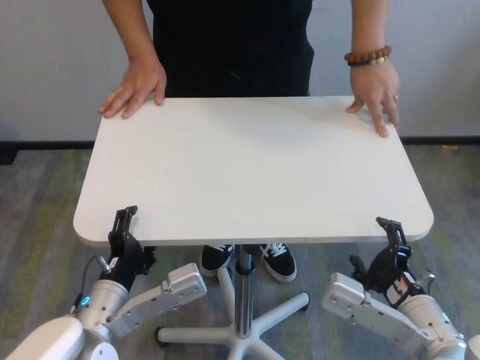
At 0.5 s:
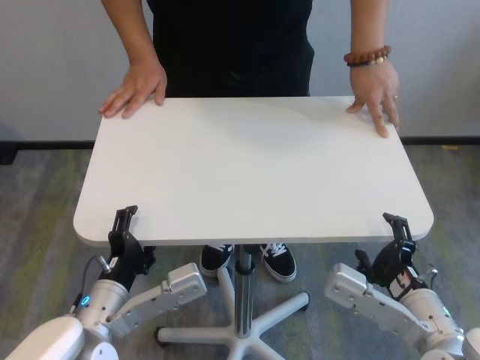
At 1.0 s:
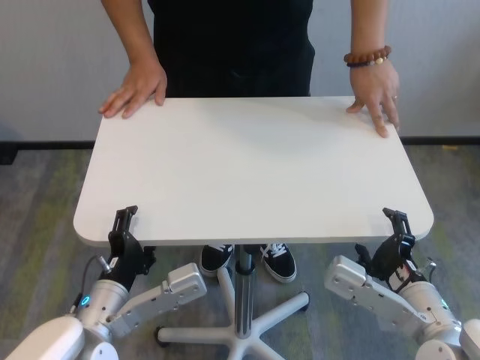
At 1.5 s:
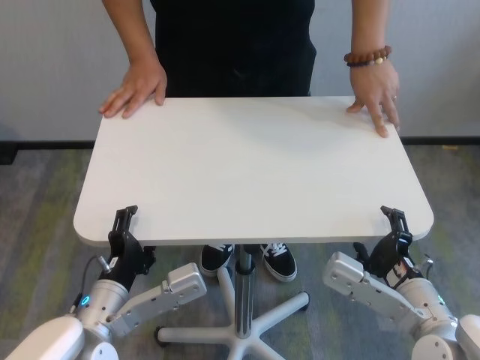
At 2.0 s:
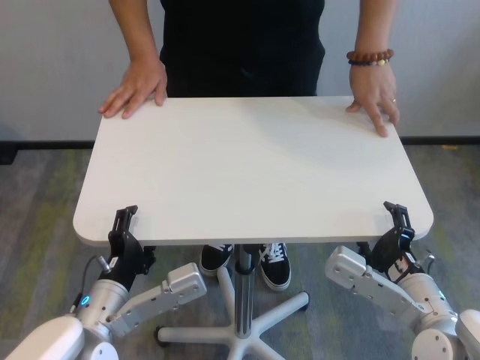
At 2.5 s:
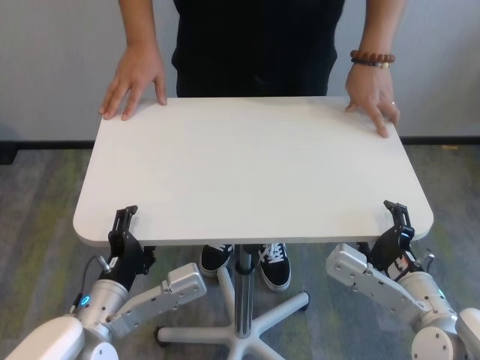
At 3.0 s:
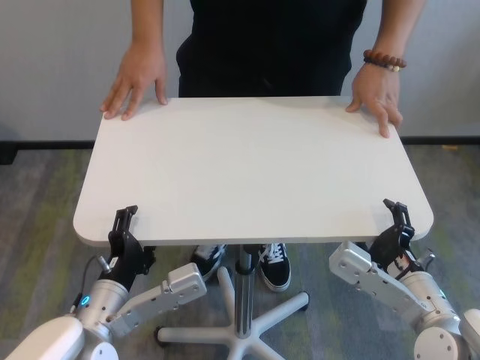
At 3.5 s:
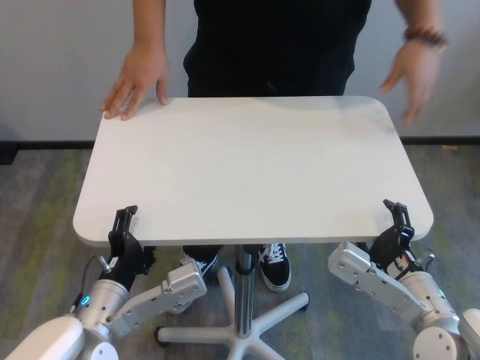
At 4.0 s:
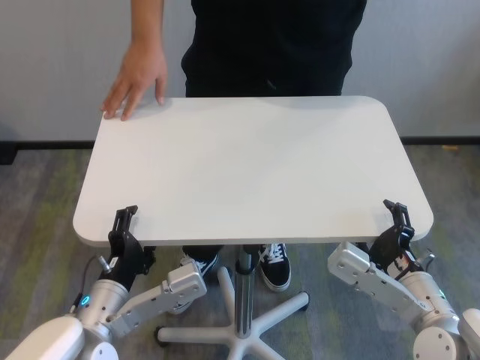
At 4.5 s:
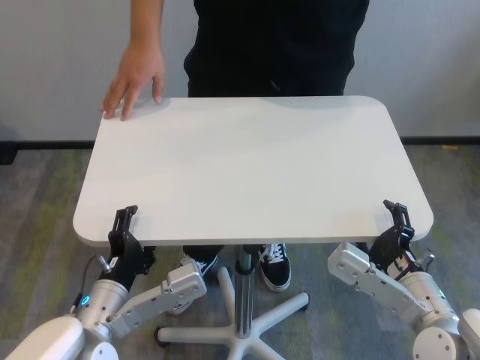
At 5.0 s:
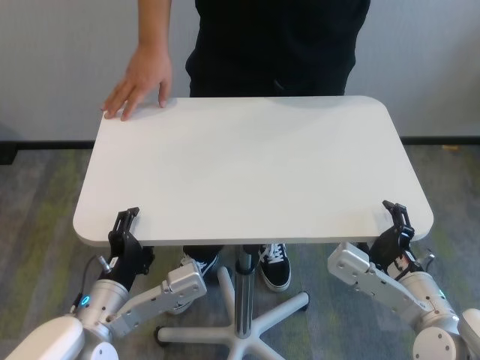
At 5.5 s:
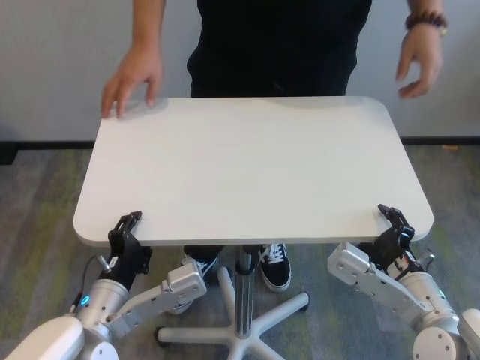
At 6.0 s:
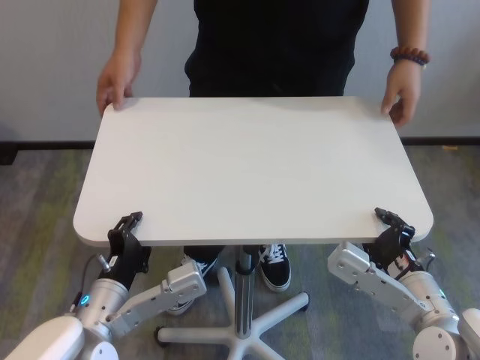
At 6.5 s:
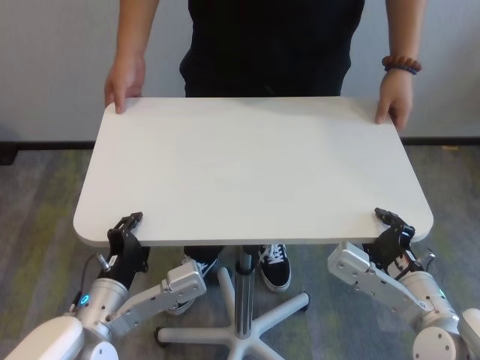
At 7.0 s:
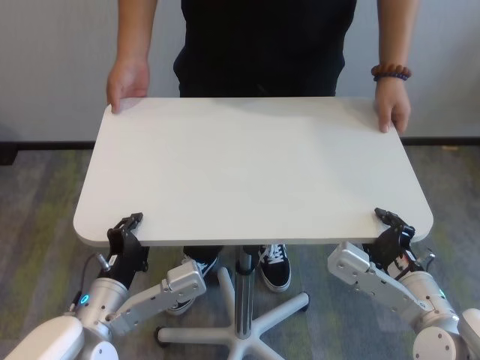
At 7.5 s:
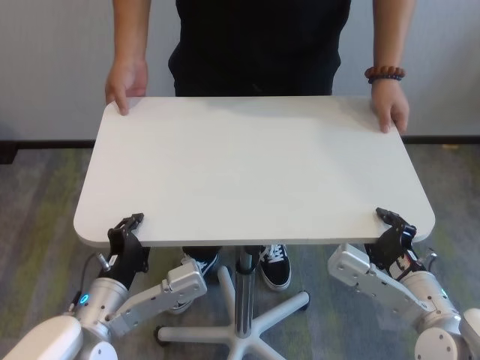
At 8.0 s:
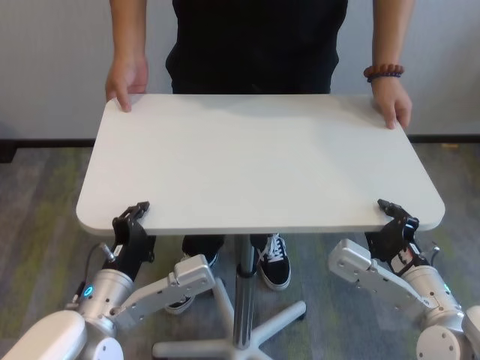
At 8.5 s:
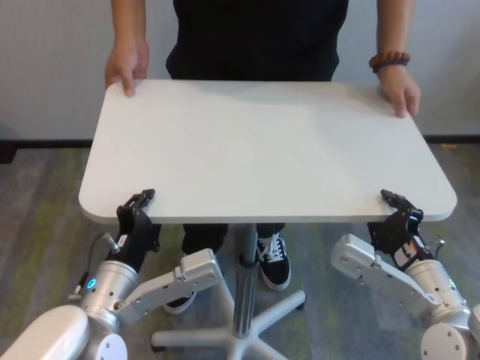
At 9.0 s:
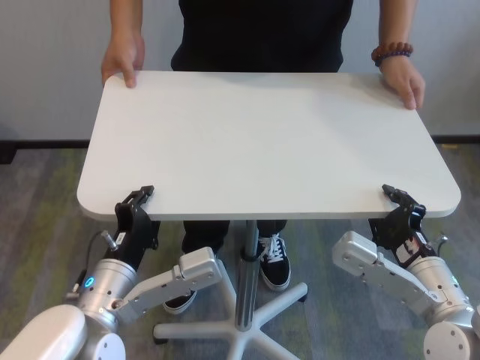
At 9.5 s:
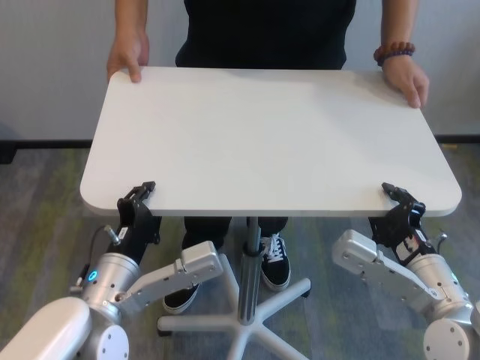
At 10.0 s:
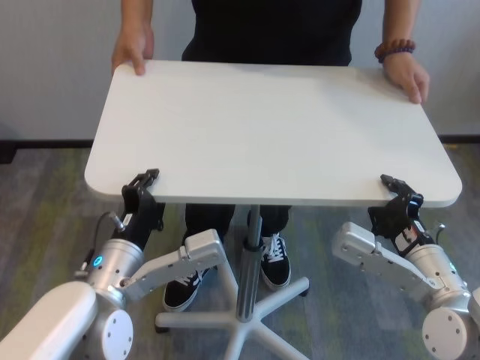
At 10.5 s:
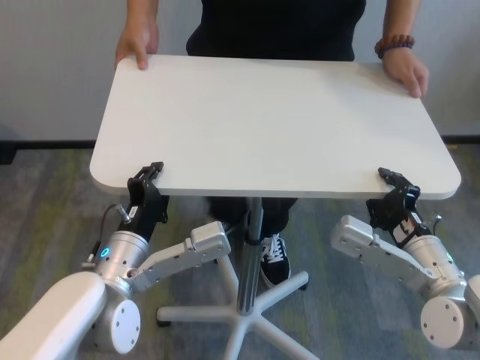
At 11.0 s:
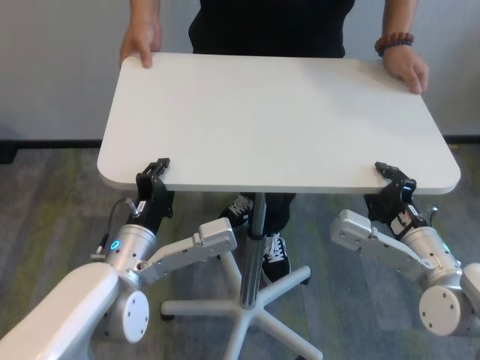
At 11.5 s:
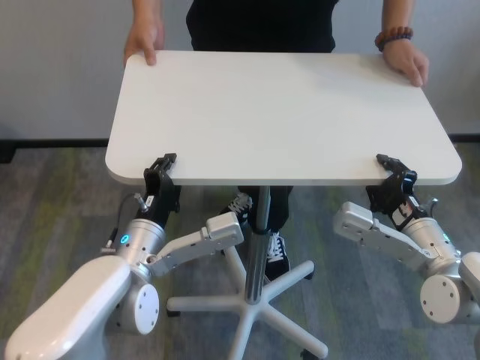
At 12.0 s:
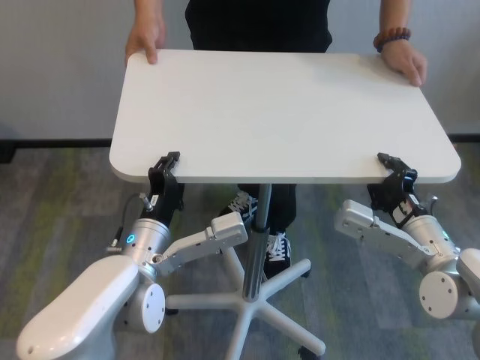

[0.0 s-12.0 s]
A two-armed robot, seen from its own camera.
Task of the whole recording: human machine collaborative table moving.
Step, 0.0 to 7.0 s: Grasp the table with both grippers.

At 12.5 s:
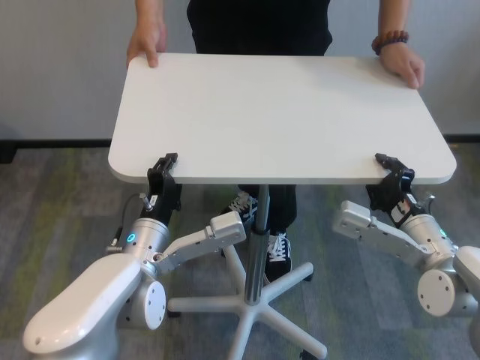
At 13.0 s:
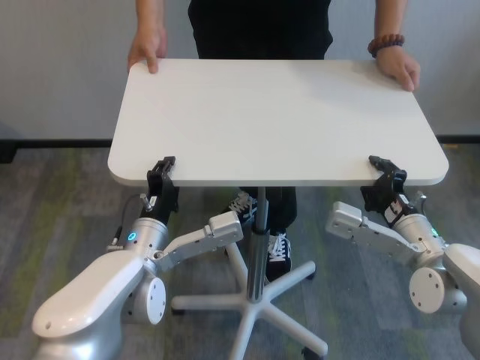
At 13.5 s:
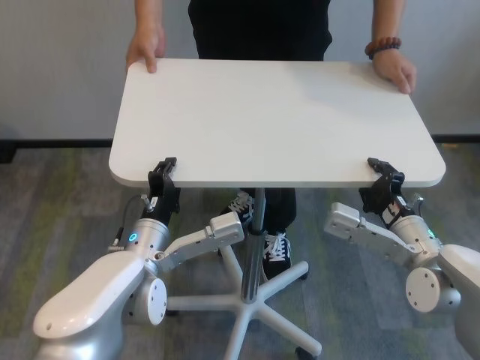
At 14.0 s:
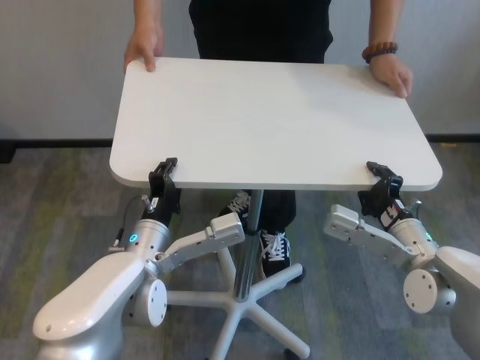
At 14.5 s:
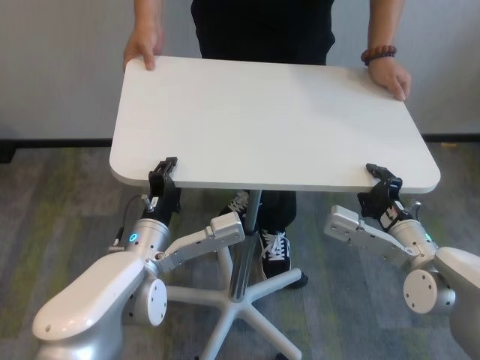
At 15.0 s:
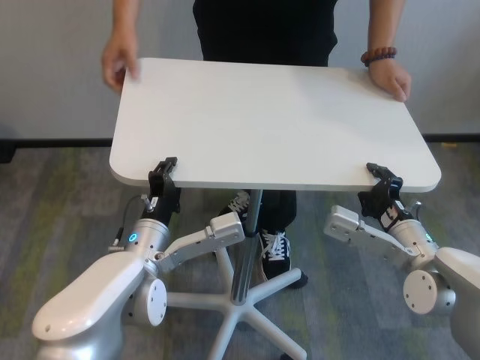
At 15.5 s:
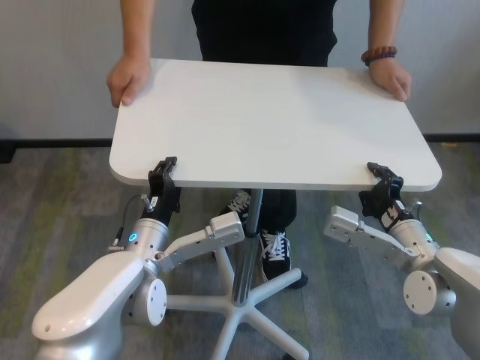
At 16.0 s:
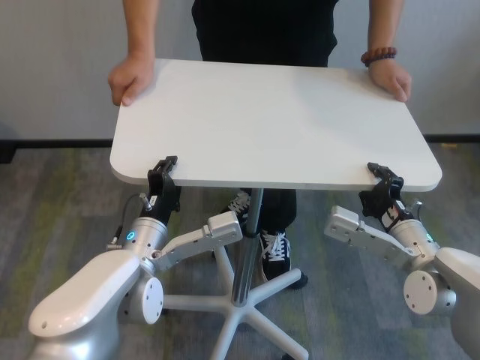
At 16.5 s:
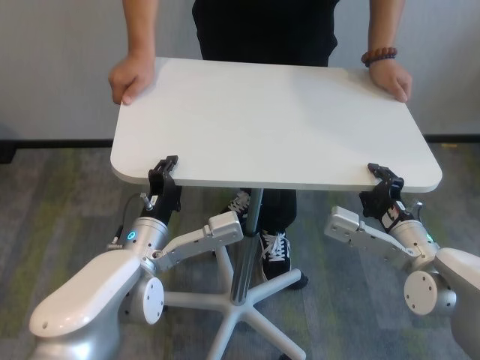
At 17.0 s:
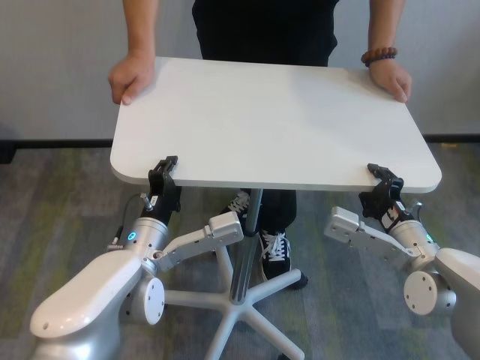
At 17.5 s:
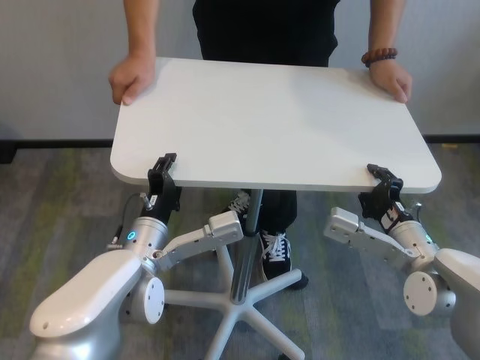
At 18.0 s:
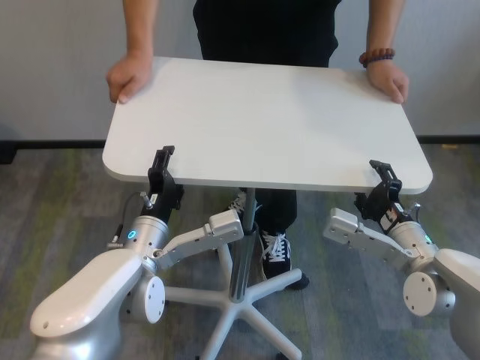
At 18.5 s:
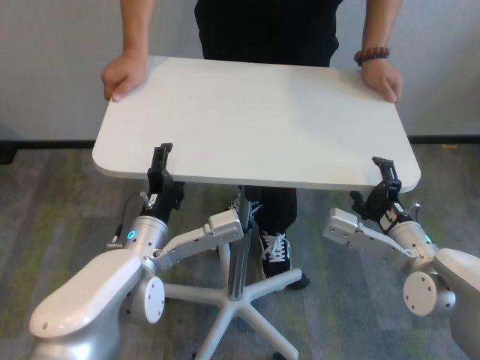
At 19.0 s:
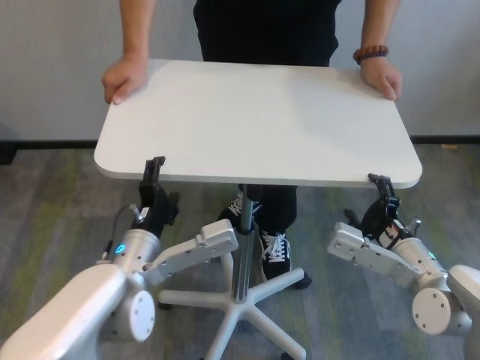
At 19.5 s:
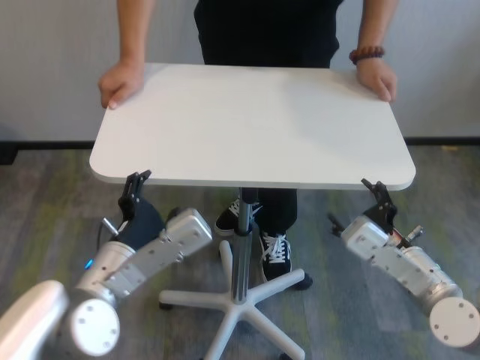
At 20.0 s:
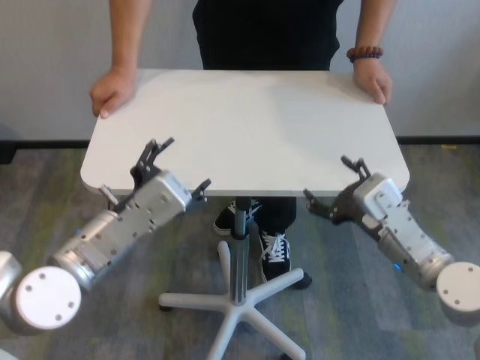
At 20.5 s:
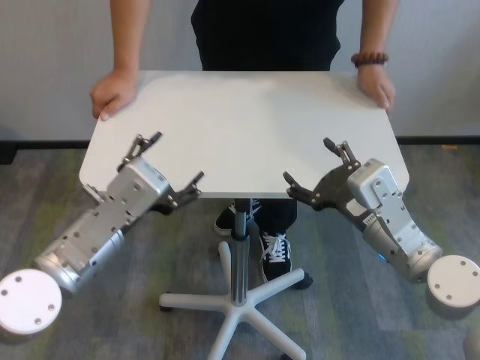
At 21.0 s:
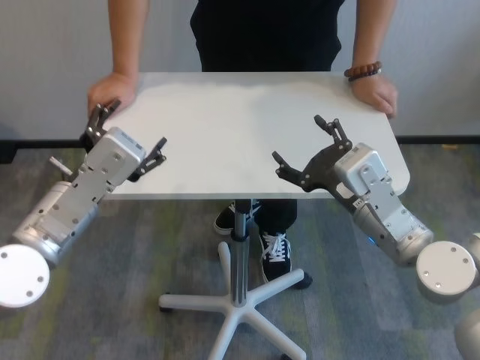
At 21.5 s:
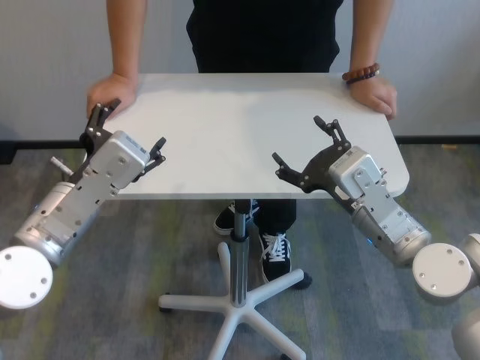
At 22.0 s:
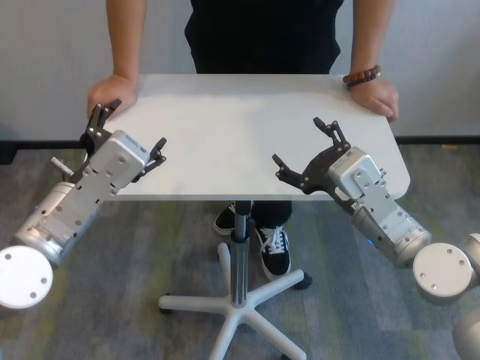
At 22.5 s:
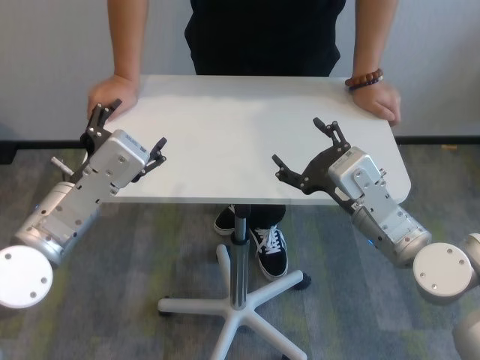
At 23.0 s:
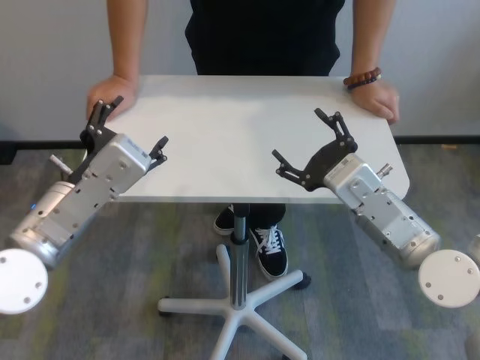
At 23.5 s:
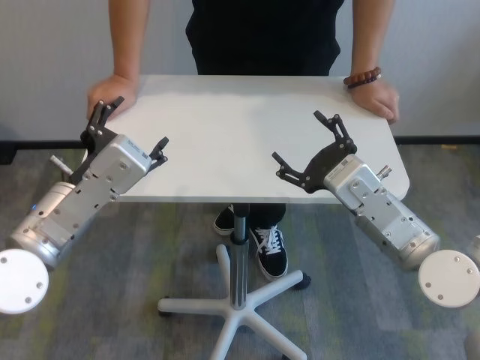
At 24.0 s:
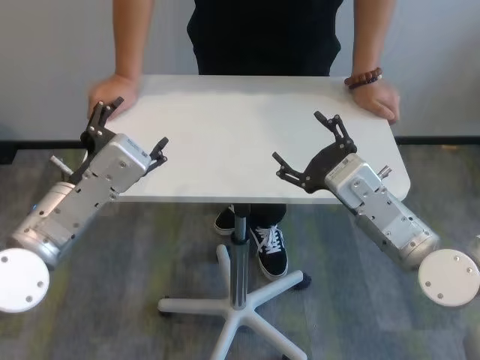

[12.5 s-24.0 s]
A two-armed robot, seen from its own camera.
Task of the whole recording: human machine collaborative table moving.
Step, 12.5 to 18.0 s: Move the table forward with both grippers.
